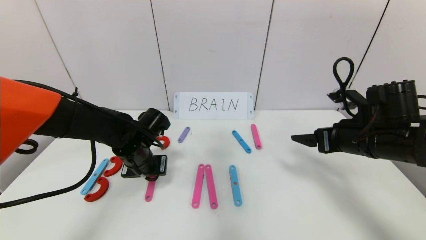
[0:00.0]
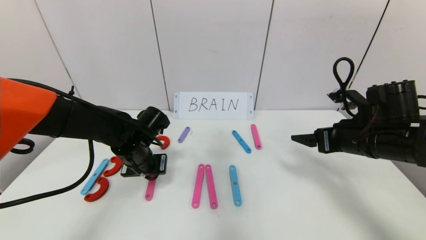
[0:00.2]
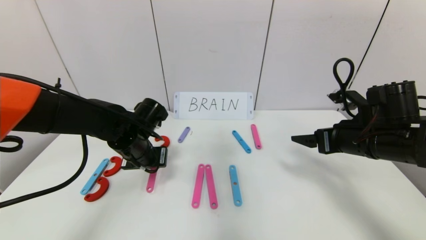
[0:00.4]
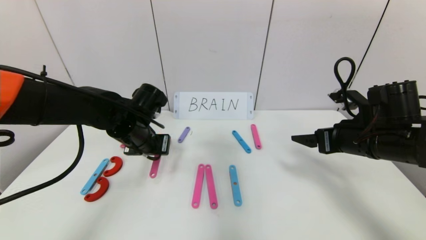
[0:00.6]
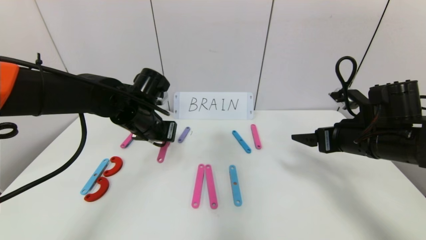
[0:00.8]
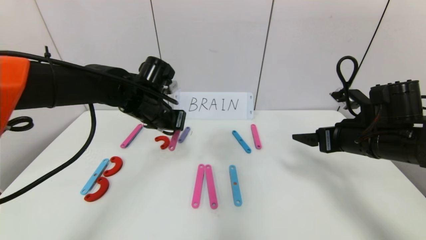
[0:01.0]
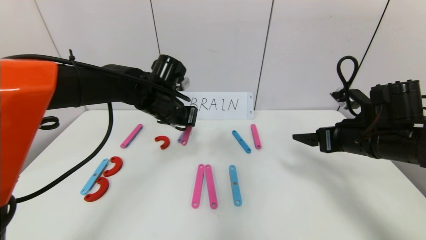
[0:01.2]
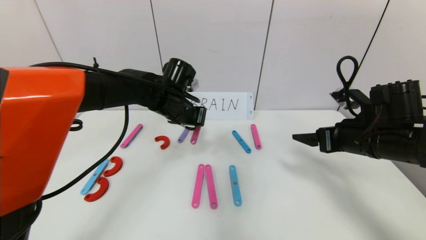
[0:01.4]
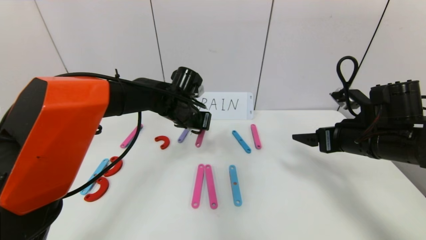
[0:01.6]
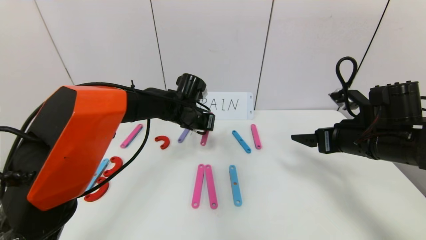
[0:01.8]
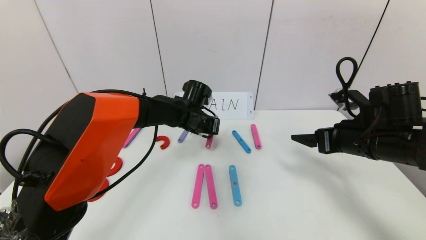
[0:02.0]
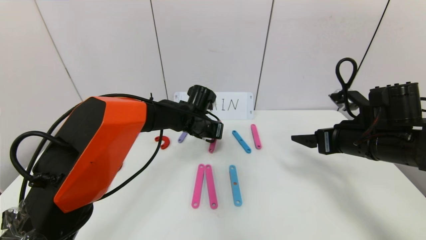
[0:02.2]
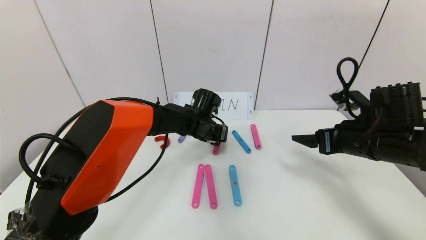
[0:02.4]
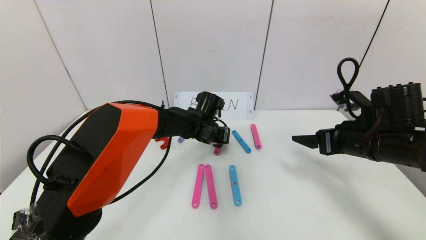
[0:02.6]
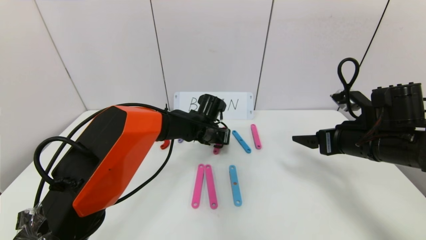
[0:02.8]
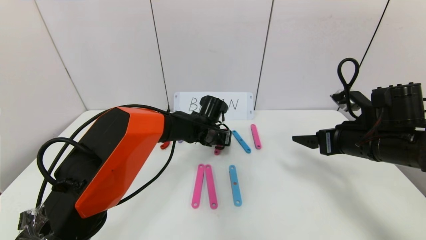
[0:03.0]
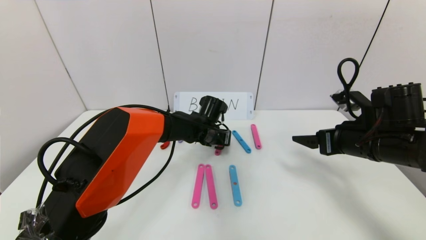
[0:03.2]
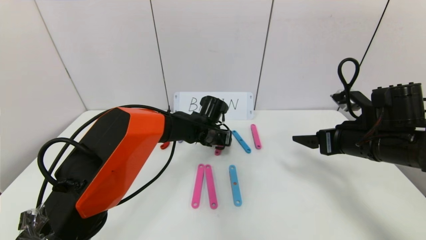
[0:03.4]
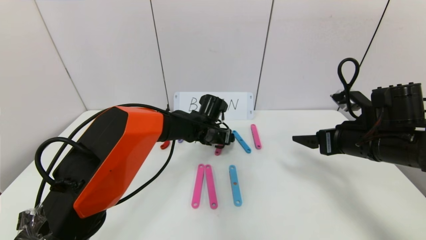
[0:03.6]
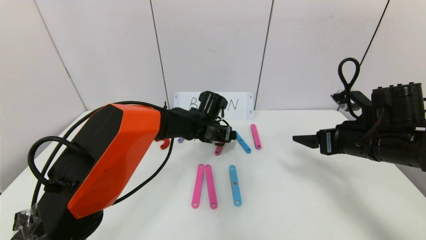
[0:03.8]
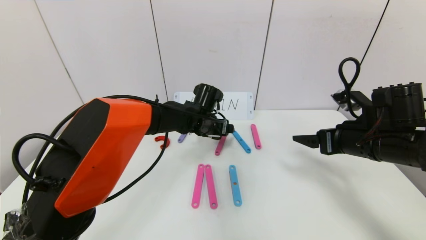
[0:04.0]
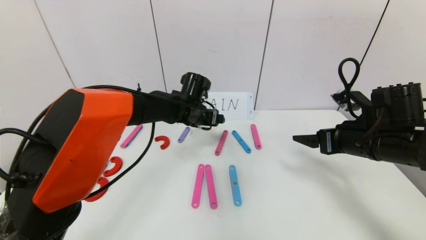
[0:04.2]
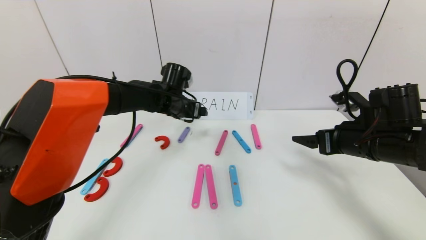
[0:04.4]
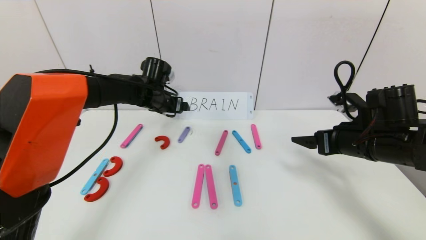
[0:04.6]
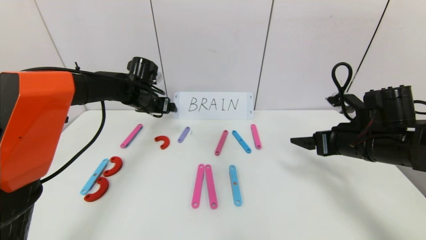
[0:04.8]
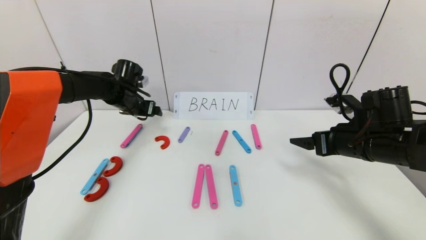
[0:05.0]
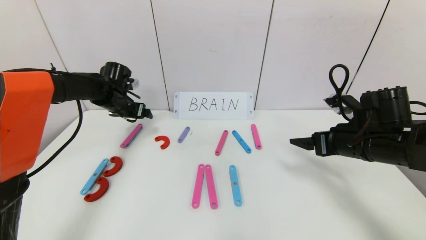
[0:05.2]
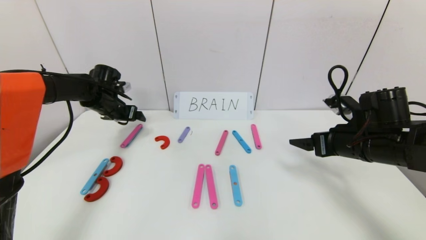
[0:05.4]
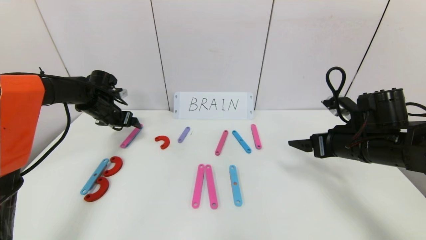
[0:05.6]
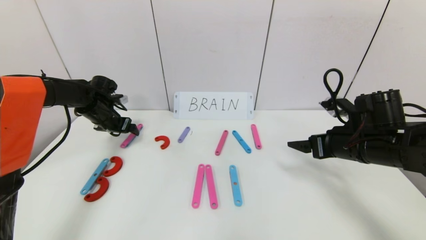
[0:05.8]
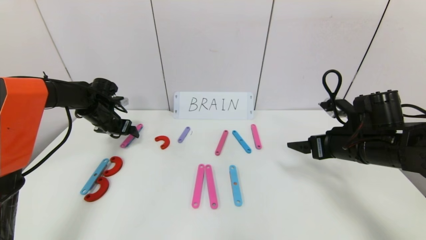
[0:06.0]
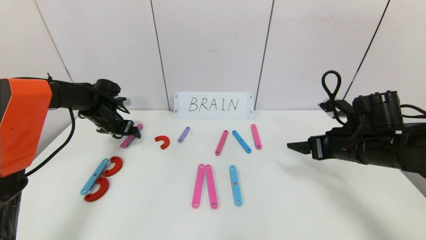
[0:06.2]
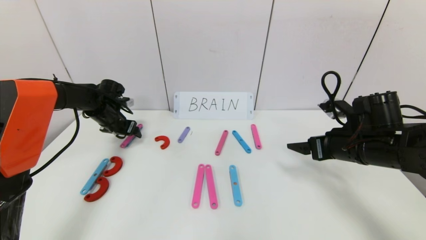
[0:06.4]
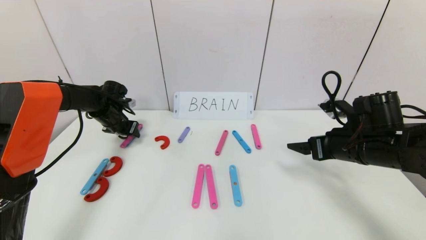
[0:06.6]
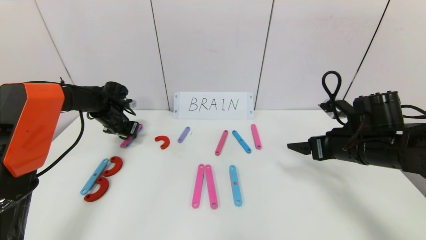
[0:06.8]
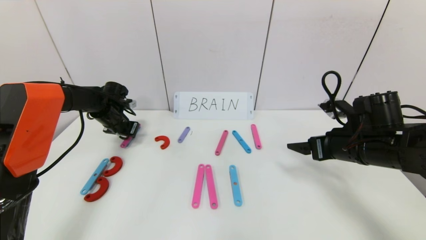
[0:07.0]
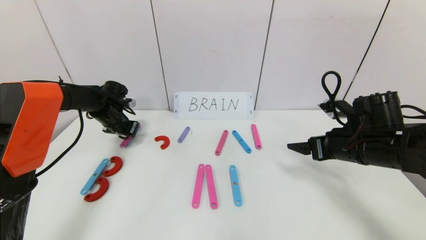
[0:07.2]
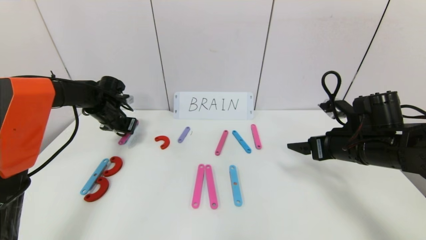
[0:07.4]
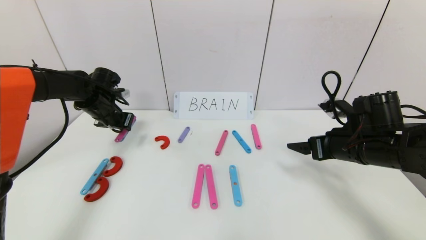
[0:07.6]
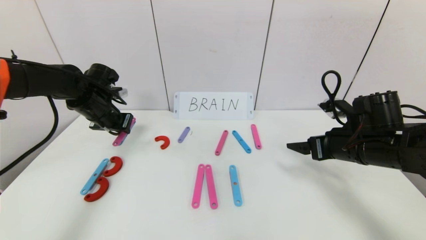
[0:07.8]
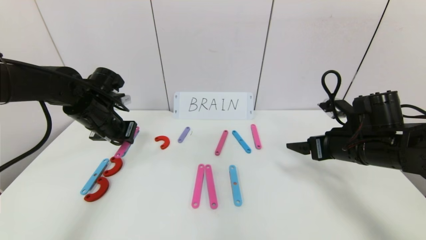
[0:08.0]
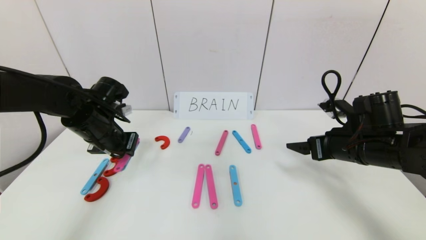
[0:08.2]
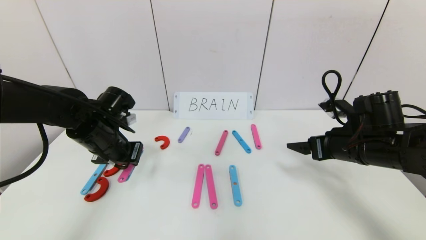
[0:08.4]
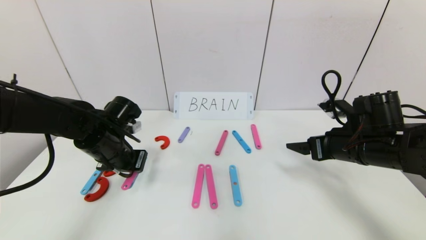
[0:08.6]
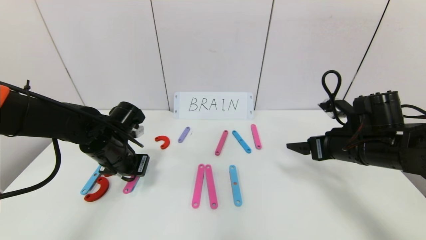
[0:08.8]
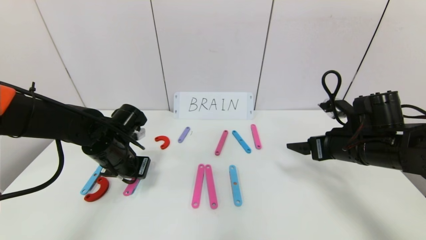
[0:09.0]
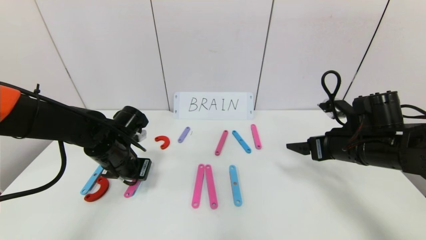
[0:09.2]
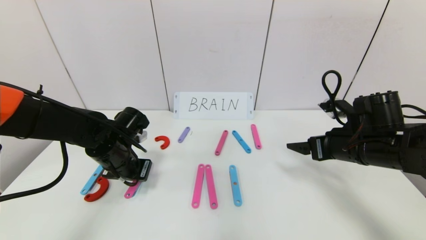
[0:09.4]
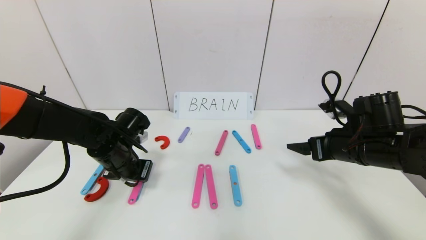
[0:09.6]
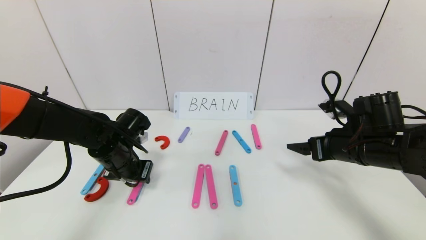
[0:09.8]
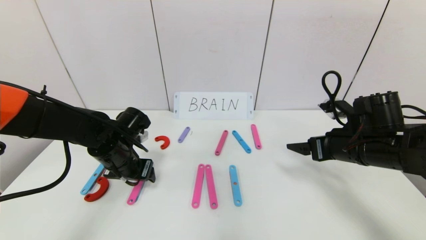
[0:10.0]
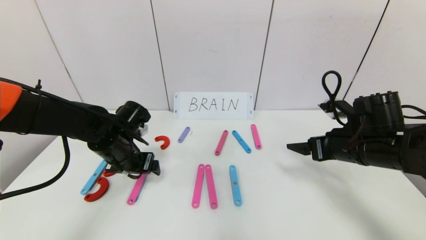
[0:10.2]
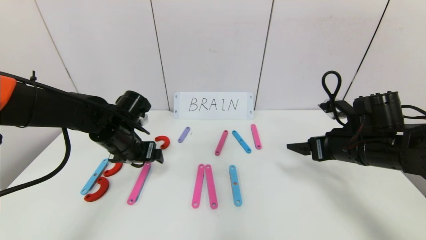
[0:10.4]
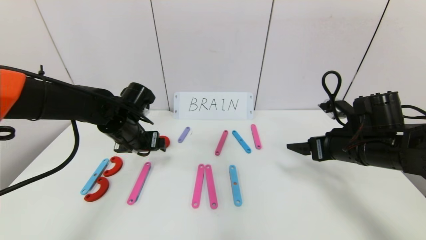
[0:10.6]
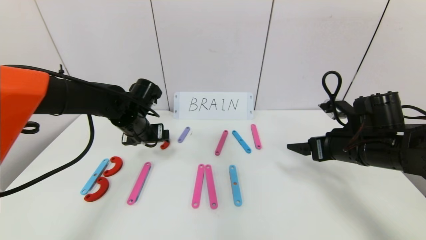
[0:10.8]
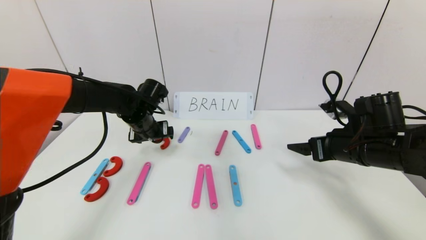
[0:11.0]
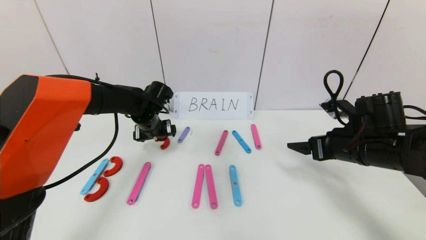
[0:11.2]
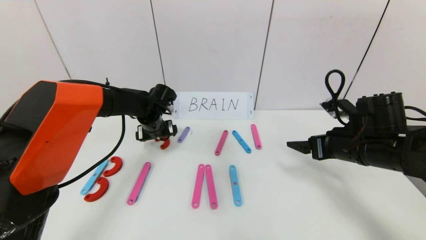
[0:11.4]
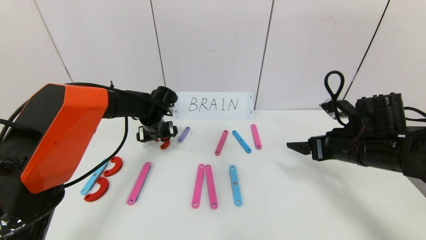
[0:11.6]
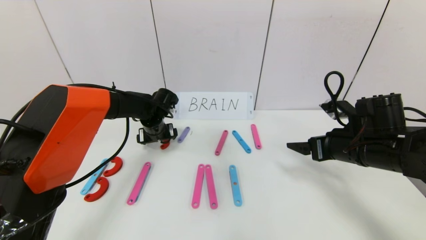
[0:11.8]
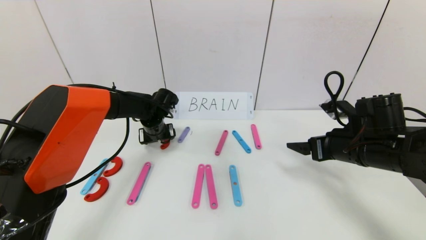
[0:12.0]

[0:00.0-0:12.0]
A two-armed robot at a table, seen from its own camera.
Task of the whole recording: rearrange the word baai as brain.
Step, 0:00.0 to 0:03.2: Disassemble the second character A.
0:00.0 to 0:01.6: The left gripper shifts about 15 cm to the right, forward and upward.
0:01.6 to 0:03.0: The left gripper shifts about 10 cm downward and to the right.
0:03.0 to 0:04.4: The left gripper travels to the left and upward by about 15 cm, and opens up.
0:04.4 to 0:06.0: The left gripper travels to the left by some 20 cm.
0:06.0 to 0:07.6: The left gripper shifts by approximately 5 cm, and closes up.
0:07.6 to 0:09.0: The left gripper heads backward and to the right, covering about 15 cm.
0:09.0 to 0:10.4: The left gripper opens.
0:10.4 to 0:12.0: The left gripper travels forward by approximately 10 cm.

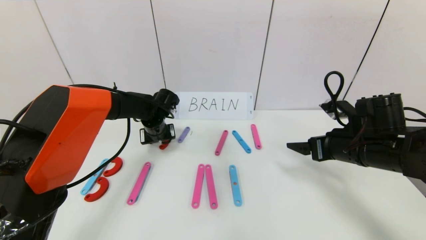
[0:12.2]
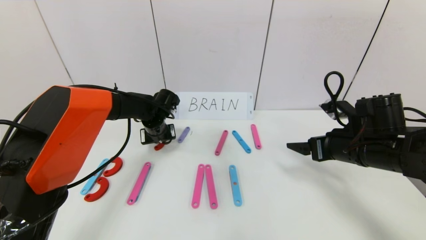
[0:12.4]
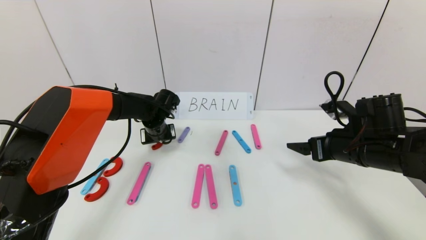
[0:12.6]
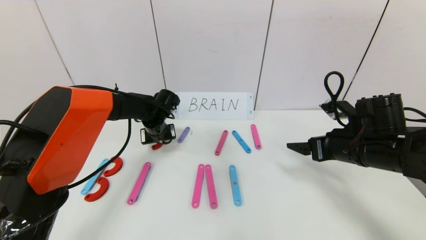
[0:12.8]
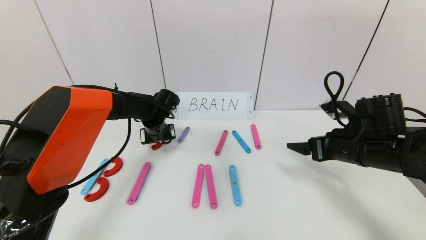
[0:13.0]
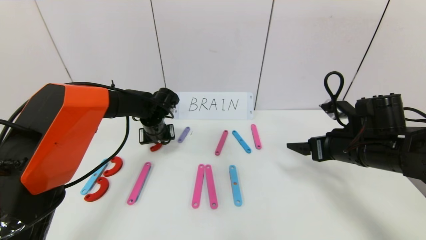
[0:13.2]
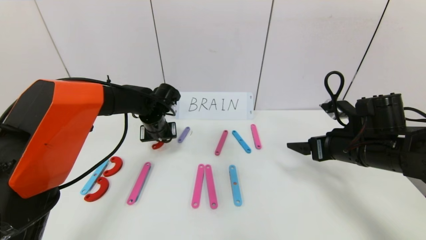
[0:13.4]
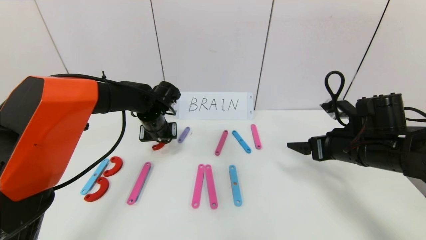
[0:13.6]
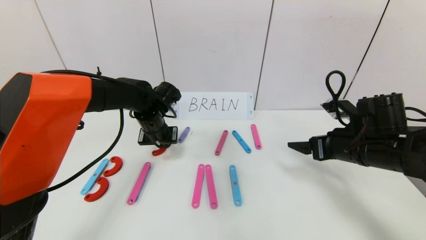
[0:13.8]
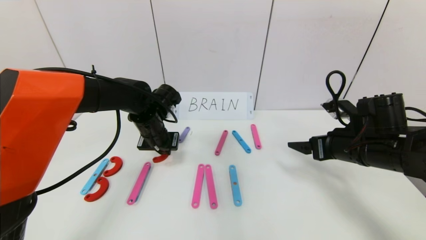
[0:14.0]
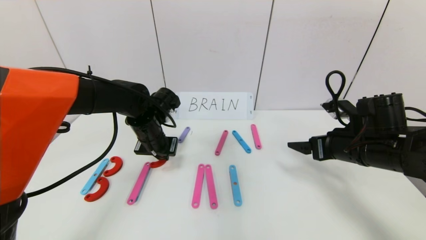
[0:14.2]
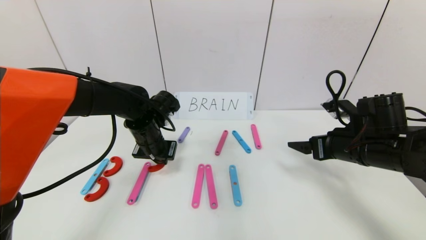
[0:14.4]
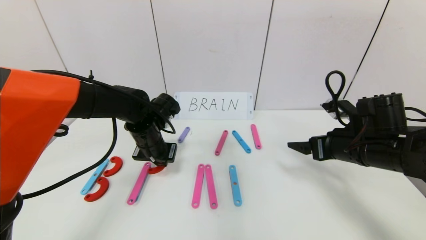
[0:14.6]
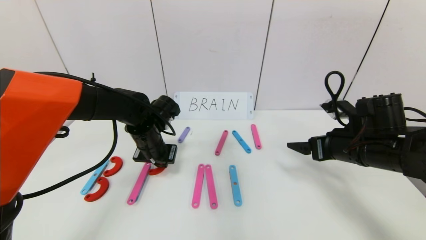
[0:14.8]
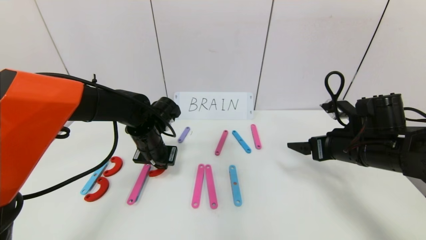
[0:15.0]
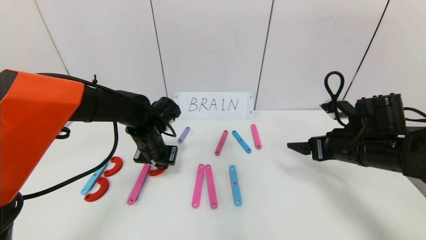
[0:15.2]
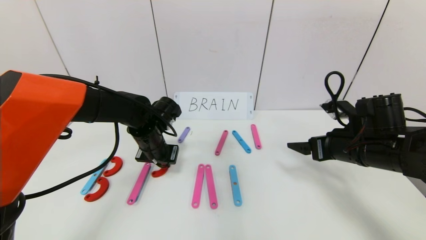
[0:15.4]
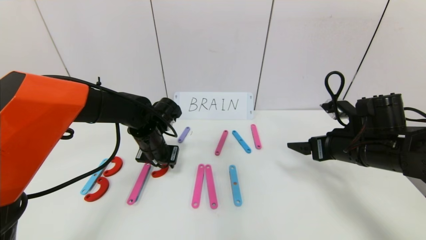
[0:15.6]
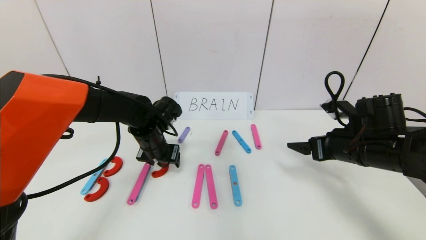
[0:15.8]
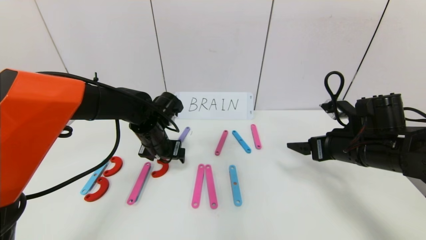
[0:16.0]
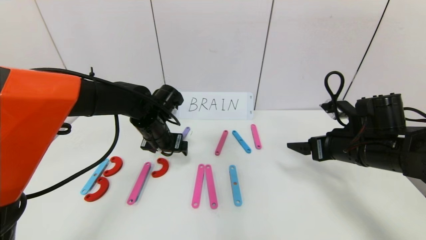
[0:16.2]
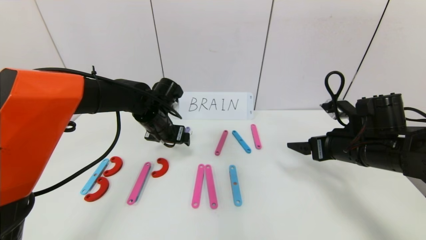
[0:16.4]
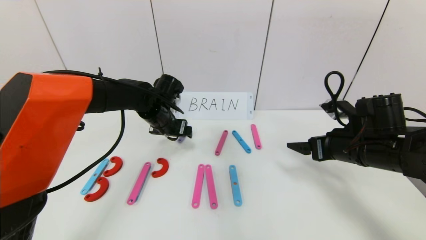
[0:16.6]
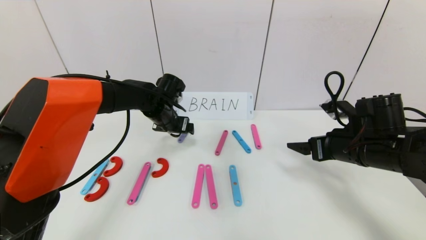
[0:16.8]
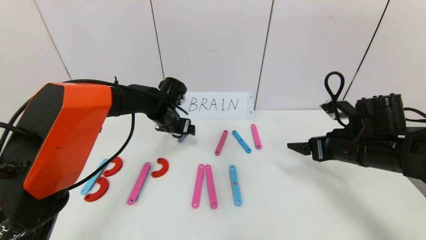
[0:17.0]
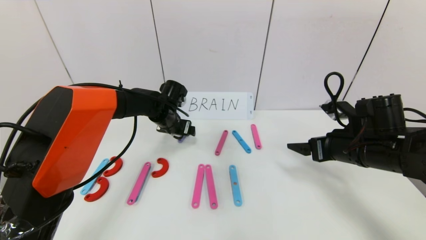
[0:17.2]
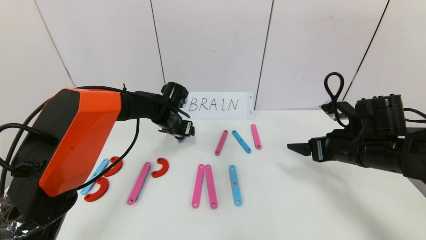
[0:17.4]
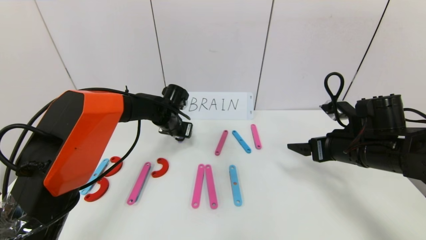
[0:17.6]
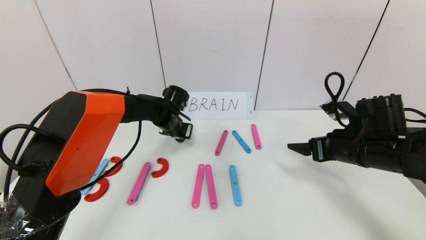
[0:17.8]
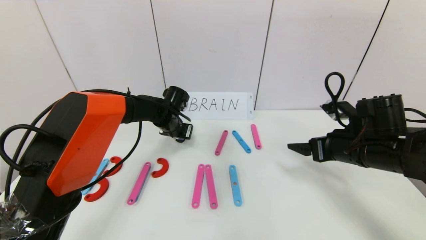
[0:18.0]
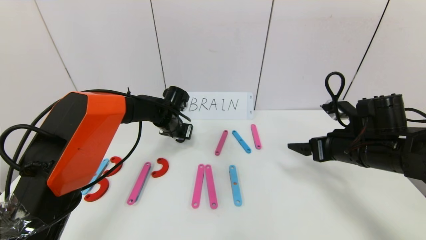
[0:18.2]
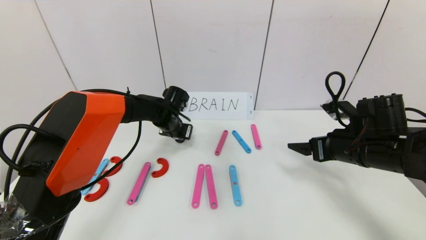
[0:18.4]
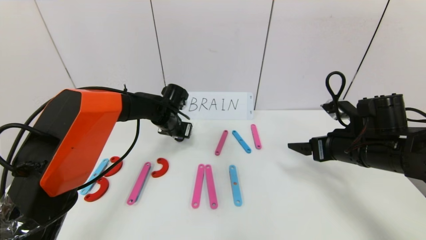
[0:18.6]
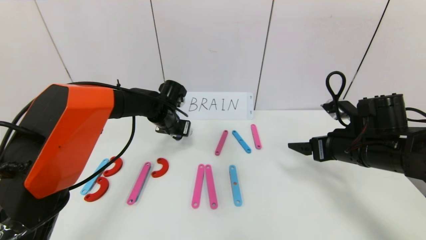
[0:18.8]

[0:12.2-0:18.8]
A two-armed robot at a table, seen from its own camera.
Task of the whole recording: rearrange the word baai as brain.
0:12.2 to 0:13.8: The left gripper moves roughly 5 cm, and closes.
0:13.8 to 0:15.4: There are only small adjustments of the grippers.
0:15.4 to 0:17.2: The left gripper travels forward by approximately 10 cm, and opens its fingers.
0:17.2 to 0:18.8: The left gripper closes.
